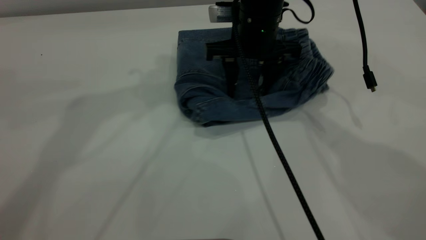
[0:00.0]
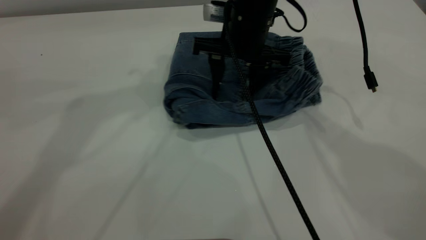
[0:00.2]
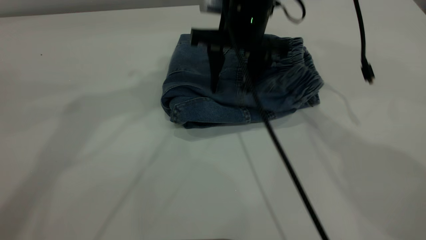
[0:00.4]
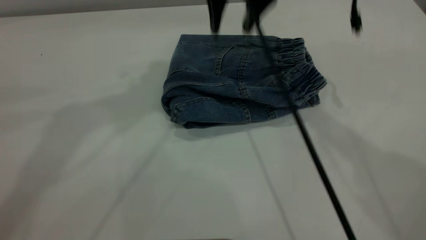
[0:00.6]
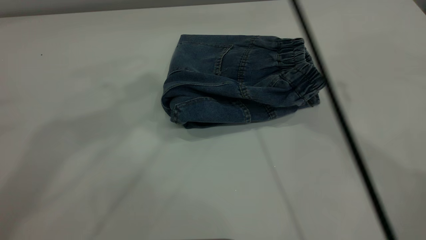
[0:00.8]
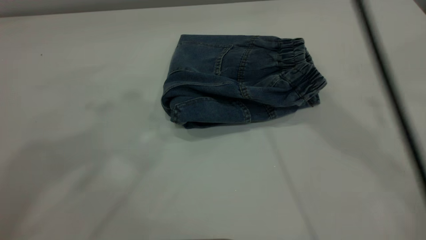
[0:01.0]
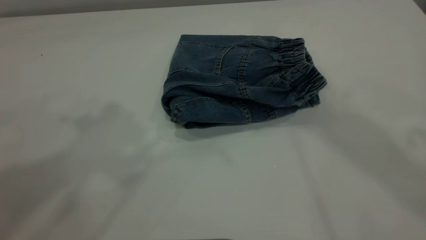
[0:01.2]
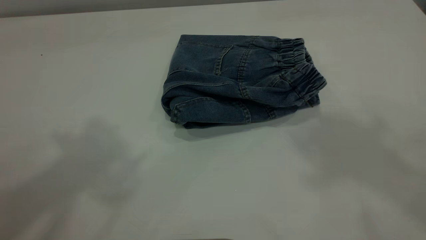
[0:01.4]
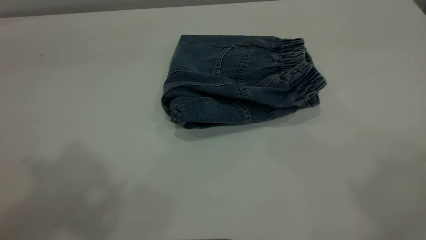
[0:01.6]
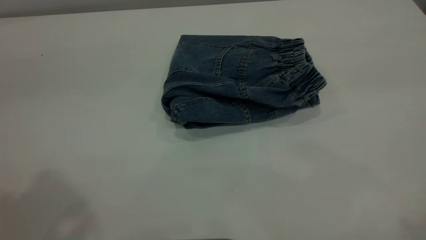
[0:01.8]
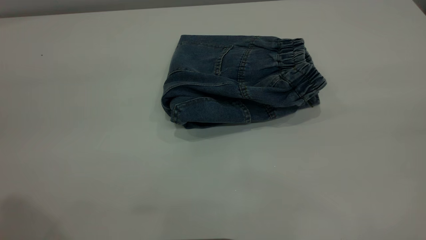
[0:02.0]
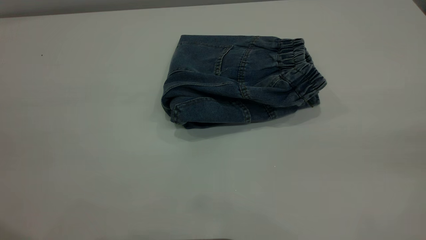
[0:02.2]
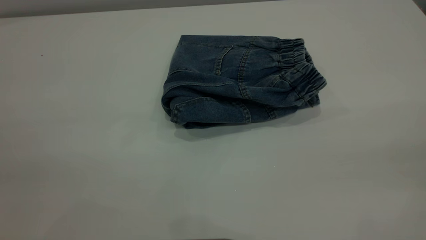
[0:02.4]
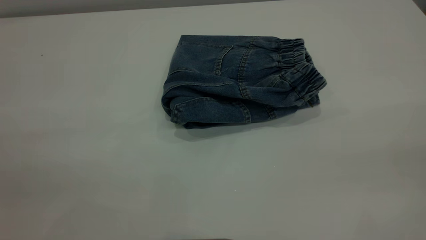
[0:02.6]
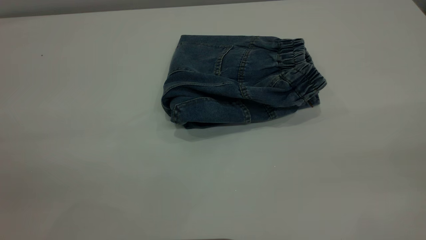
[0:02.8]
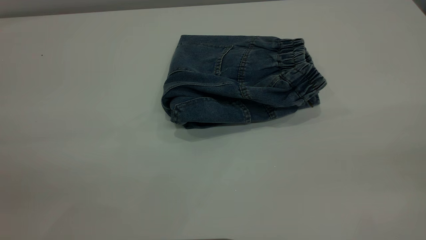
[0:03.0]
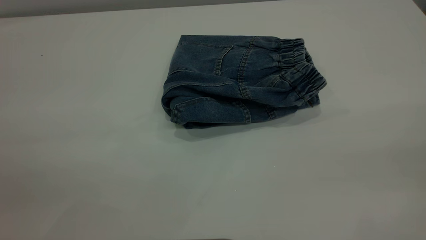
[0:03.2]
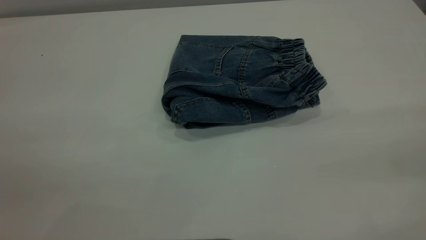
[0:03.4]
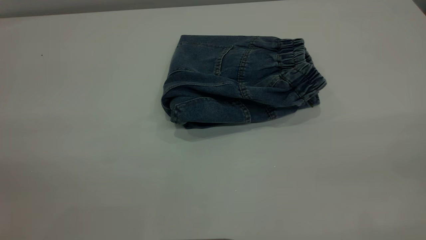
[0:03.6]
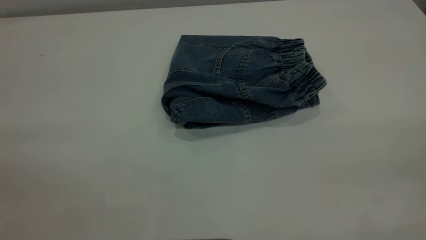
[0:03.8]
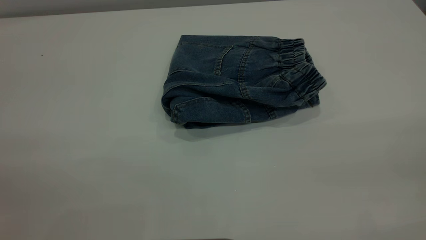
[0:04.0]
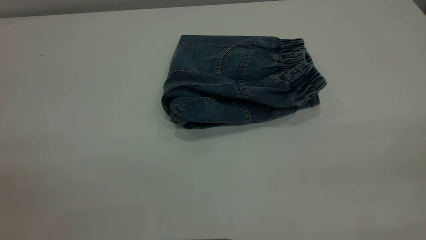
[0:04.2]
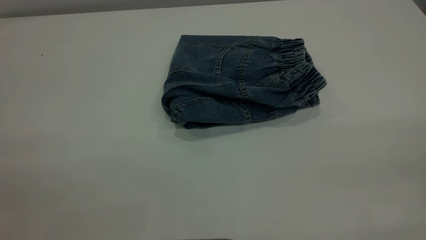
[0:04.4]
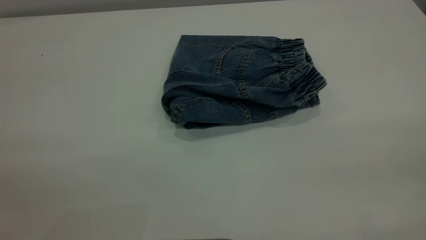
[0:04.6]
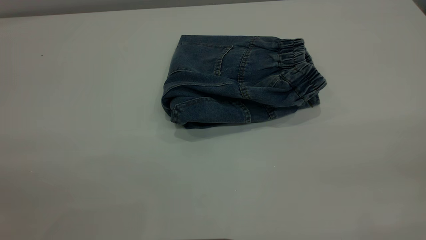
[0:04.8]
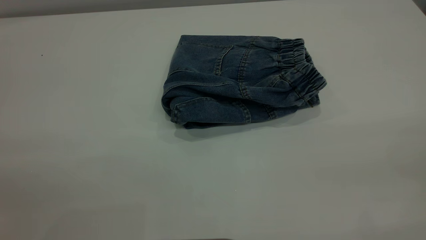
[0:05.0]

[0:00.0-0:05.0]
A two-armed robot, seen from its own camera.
0:00.0 to 0:01.6: The left gripper goes approximately 25 cm backward, upward and to the left, while the right gripper travels upward, backward and to the right by approximately 50 cm.
